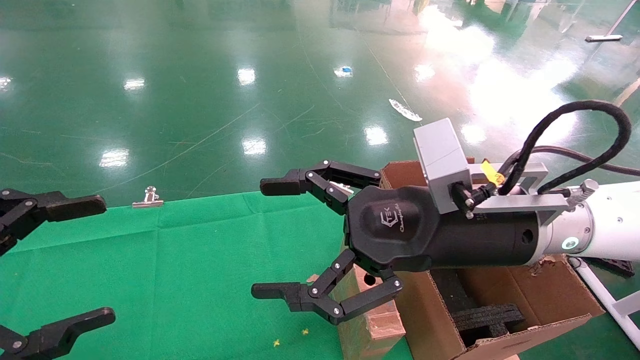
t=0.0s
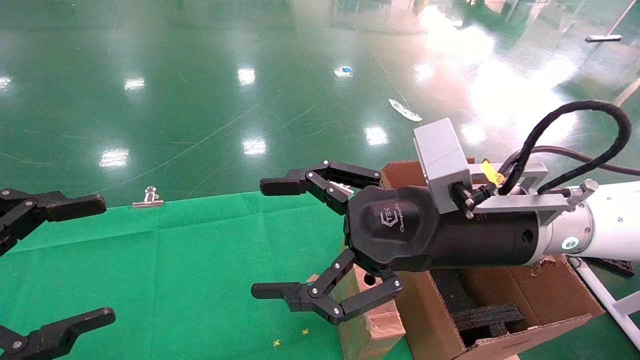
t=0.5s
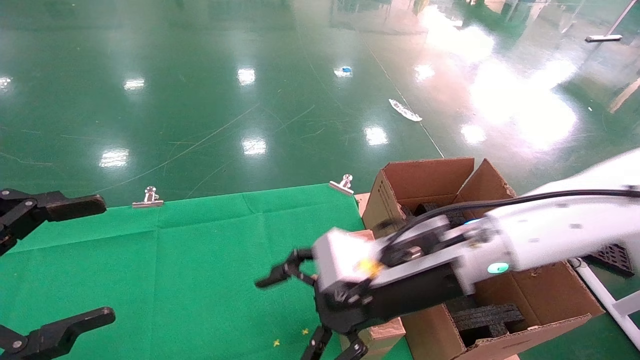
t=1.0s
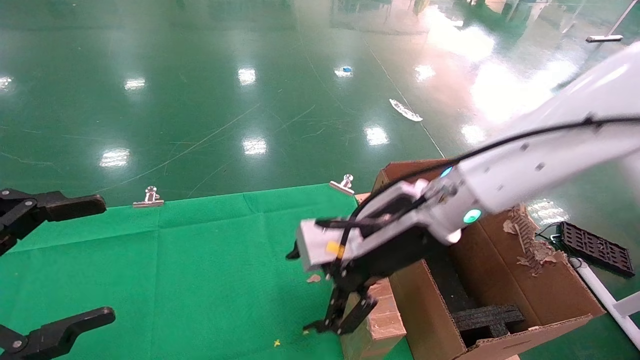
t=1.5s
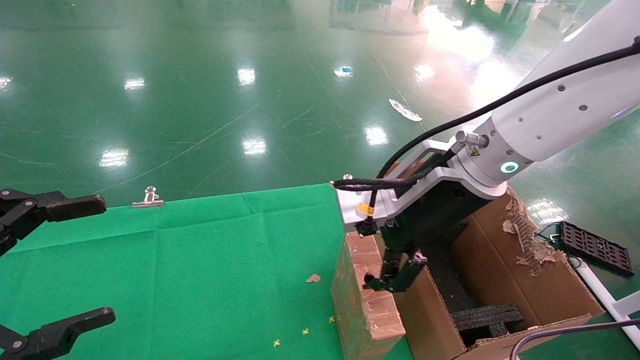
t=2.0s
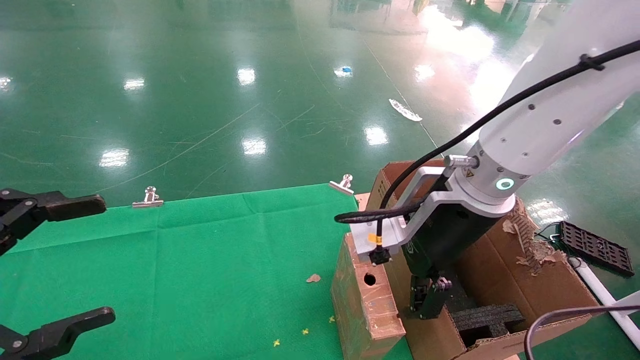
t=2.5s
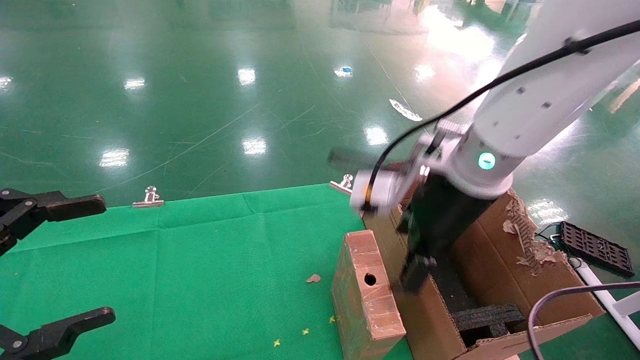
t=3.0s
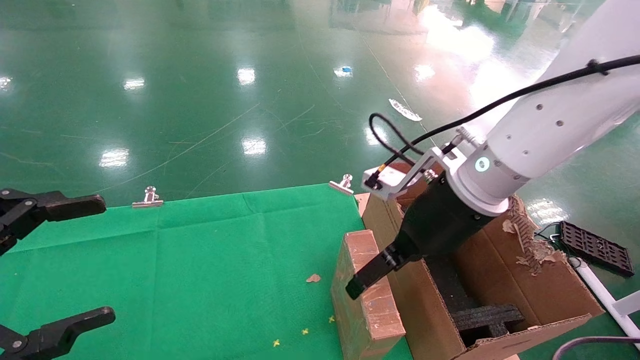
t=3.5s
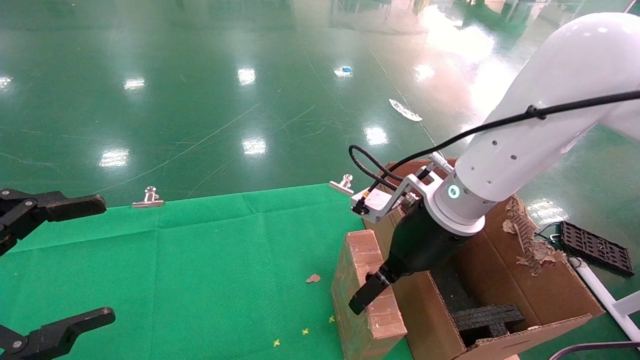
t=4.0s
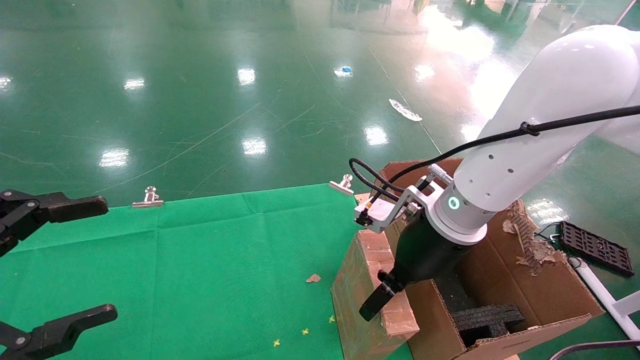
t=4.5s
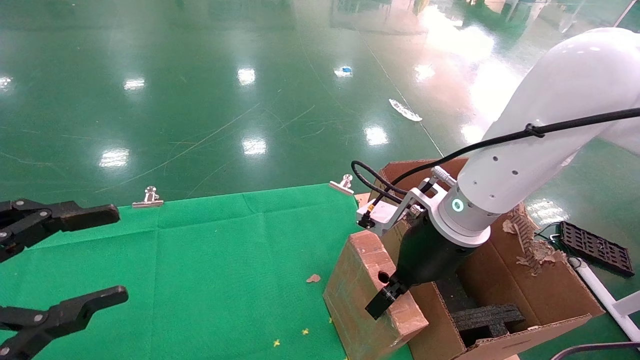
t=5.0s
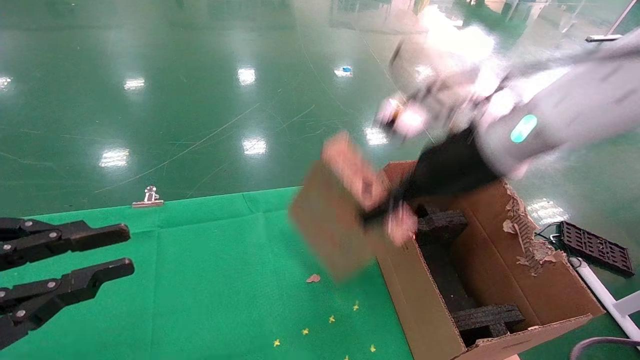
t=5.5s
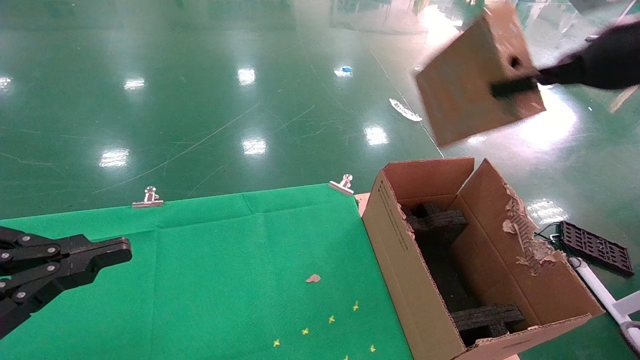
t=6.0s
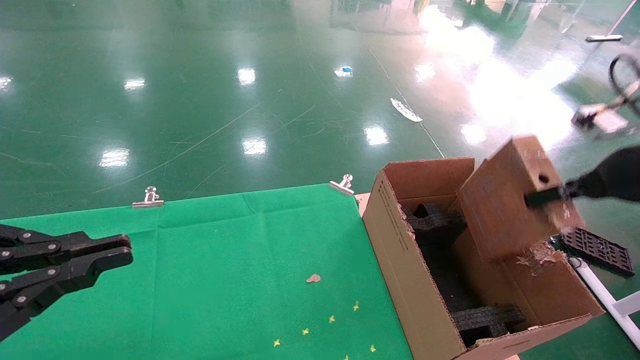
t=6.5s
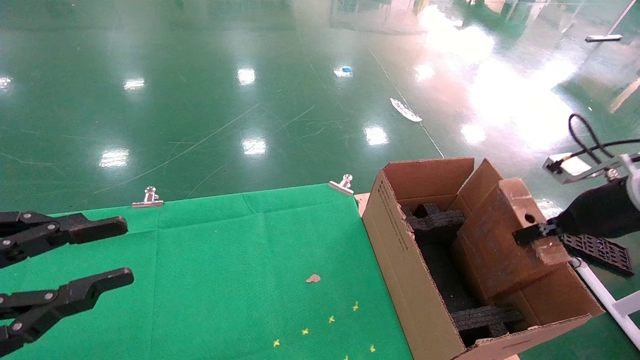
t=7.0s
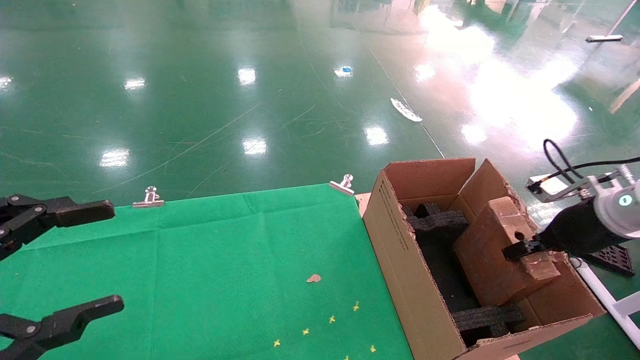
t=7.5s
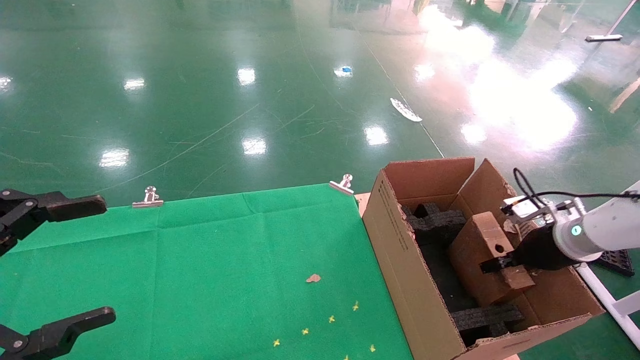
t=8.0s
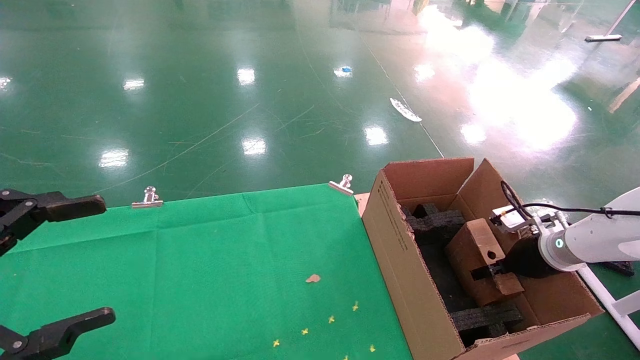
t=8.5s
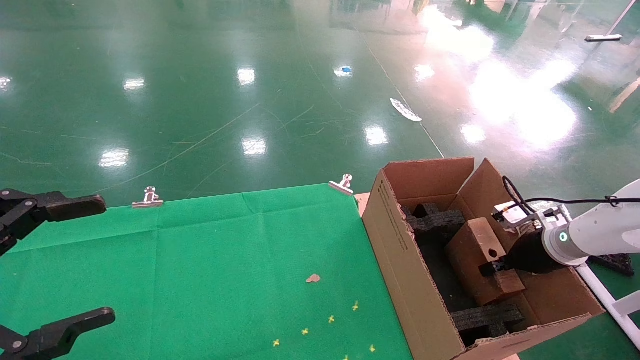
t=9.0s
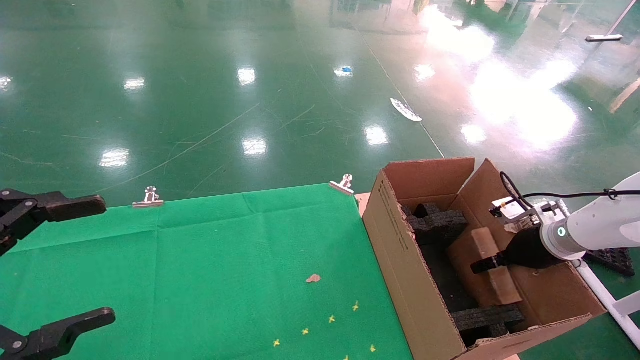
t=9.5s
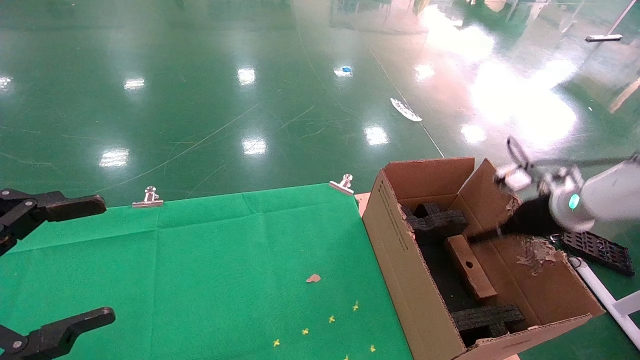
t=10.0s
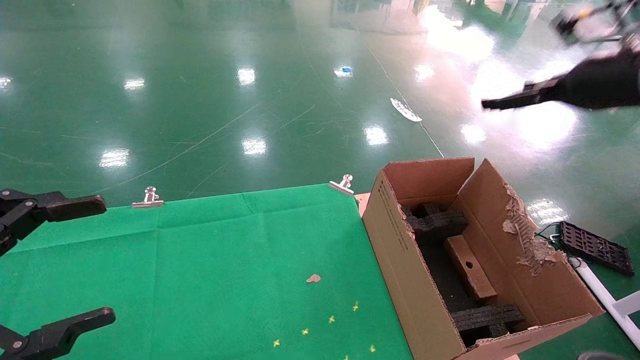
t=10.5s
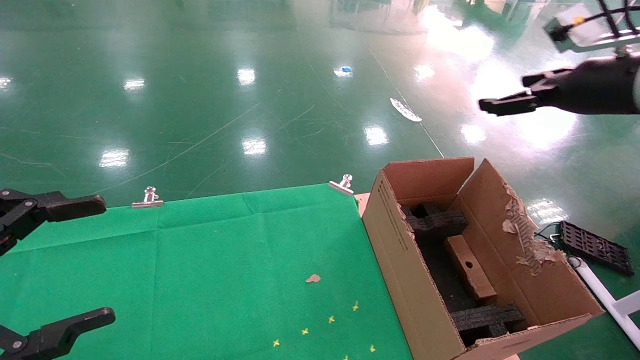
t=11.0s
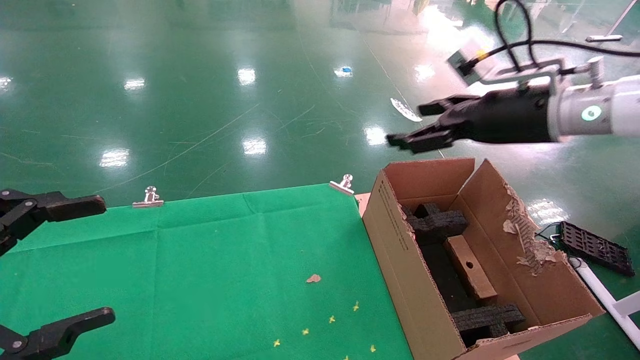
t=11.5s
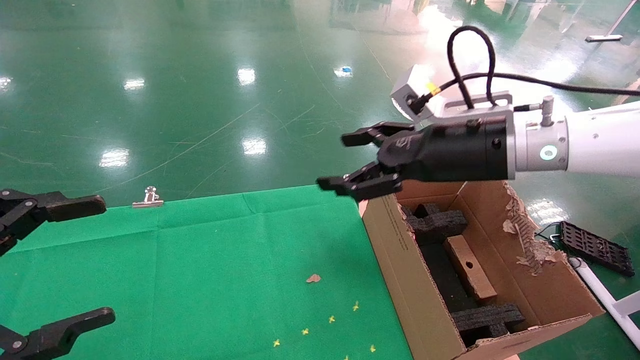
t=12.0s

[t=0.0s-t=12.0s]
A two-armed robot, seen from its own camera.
Task of the whole recording: using a robotic arm to pick up a cardboard box and palace it the carton.
Step, t=1.0s to t=5.0s: Pick up the mouse and the power cord paper box.
Step, t=5.5s to t=9.5s: Place the mouse and the power cord paper box into the container.
t=0.0s to t=2.0s: The right gripper is displaced forward by some 5 cm.
t=2.0s to t=4.0s: The right gripper heads downward, covering some 5 cm.
t=4.0s to t=6.0s: The left gripper closes its fingers, while the right gripper travels to the right and upward by approximately 25 cm, and closes.
t=6.0s to t=8.0s: The right gripper heads downward, covering about 30 cm. The left gripper opens its fingers.
t=8.0s to t=10.0s: The right gripper travels upward by about 5 cm, and opens.
t=10.0s to t=12.0s: The right gripper goes roughly 25 cm to the left and upward.

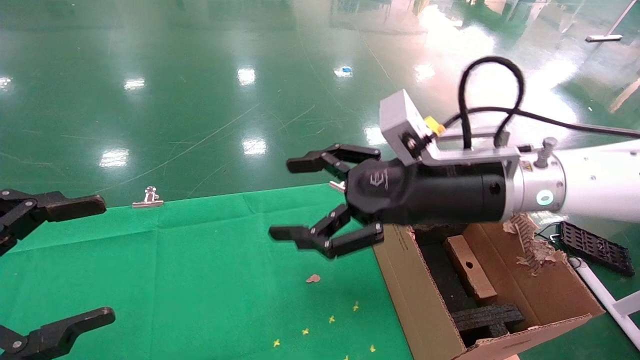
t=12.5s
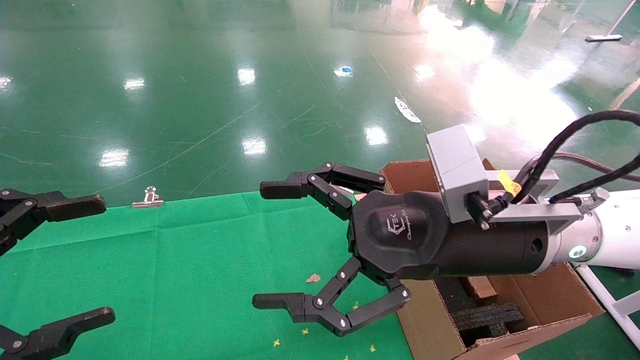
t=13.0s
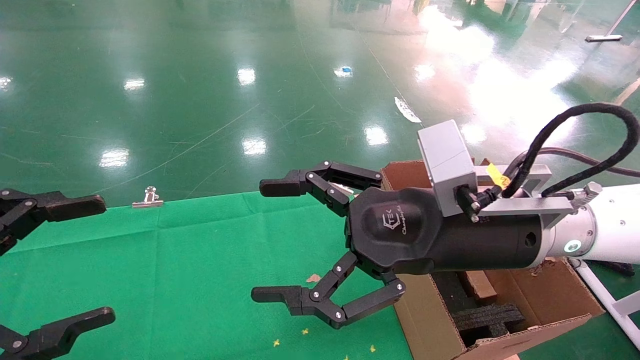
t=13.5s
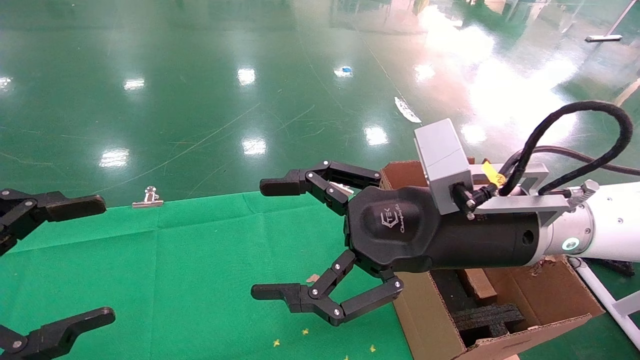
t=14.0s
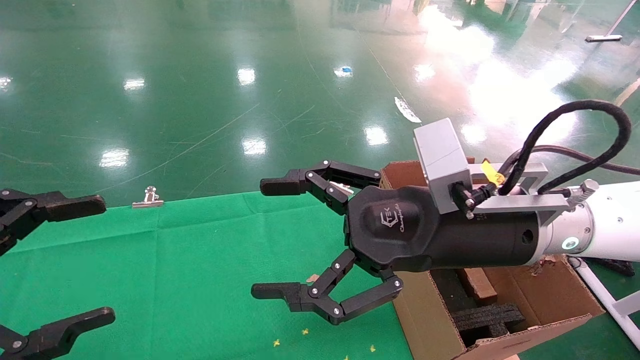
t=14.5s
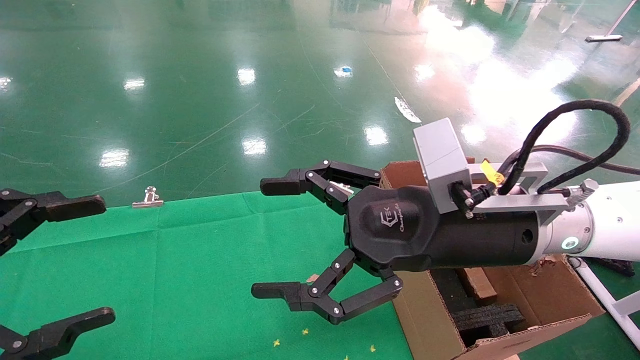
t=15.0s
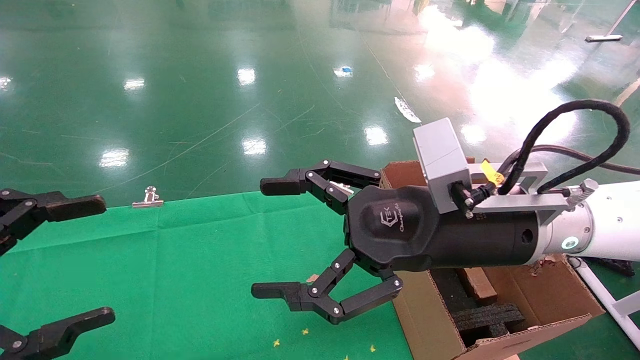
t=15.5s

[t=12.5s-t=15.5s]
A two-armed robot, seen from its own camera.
Task of the whole recording: using a robotic arm to pick up a cardboard box and palace it the carton.
t=12.5s to t=14.0s: There are only small adjustments of the grippers.
t=14.0s to t=15.5s: Both grippers stay put.
